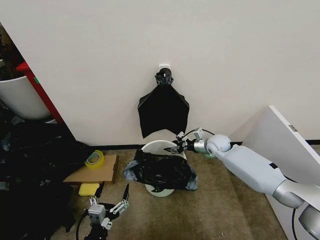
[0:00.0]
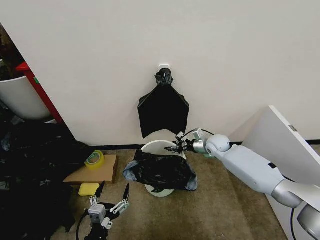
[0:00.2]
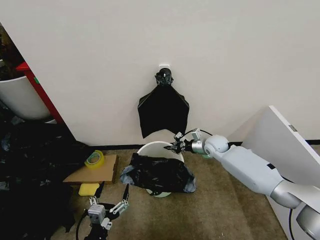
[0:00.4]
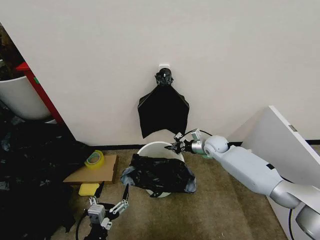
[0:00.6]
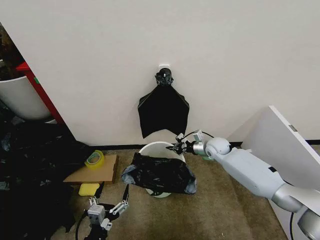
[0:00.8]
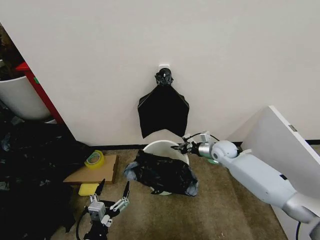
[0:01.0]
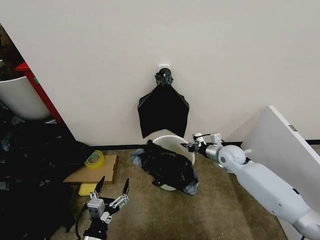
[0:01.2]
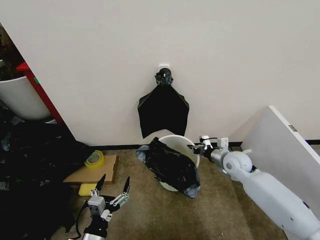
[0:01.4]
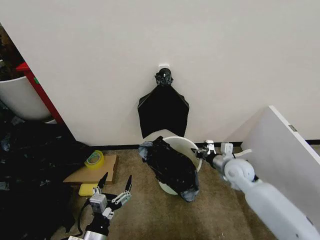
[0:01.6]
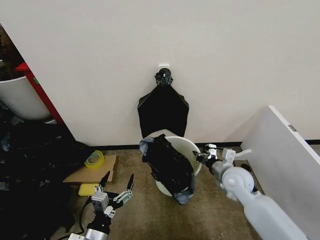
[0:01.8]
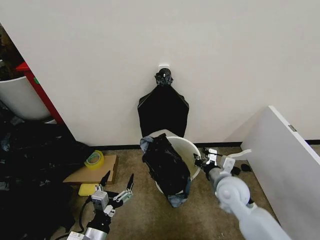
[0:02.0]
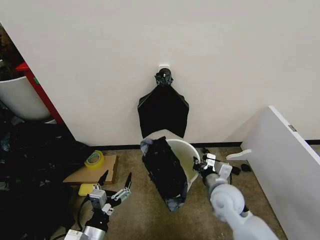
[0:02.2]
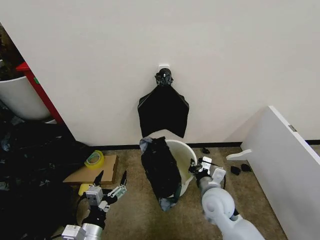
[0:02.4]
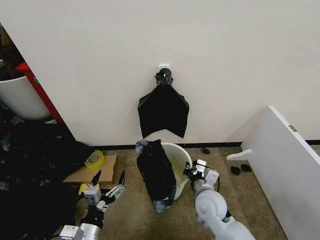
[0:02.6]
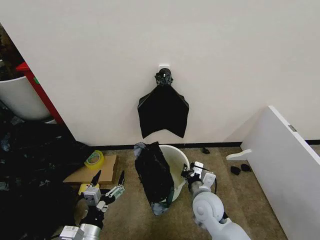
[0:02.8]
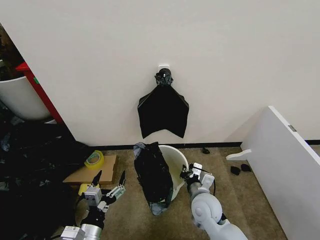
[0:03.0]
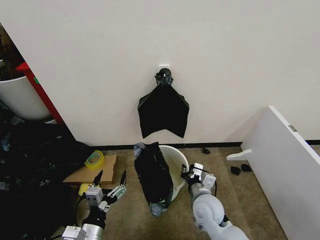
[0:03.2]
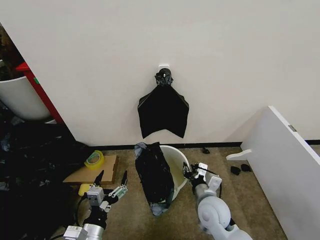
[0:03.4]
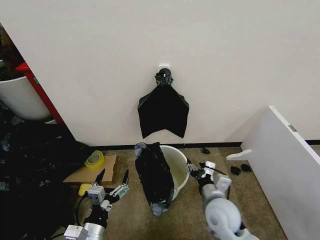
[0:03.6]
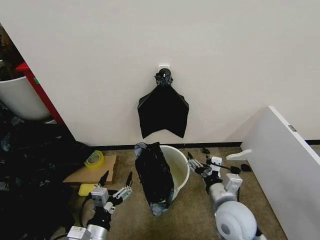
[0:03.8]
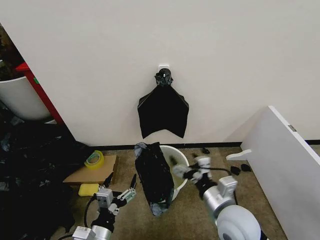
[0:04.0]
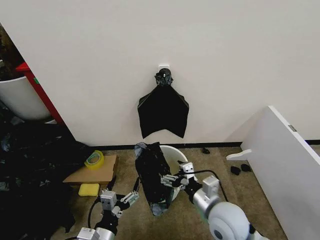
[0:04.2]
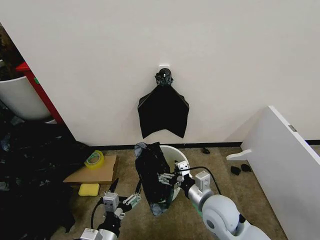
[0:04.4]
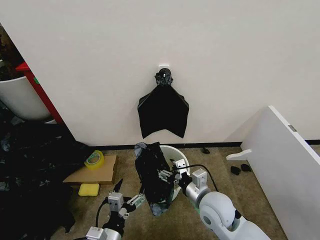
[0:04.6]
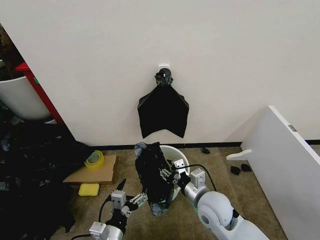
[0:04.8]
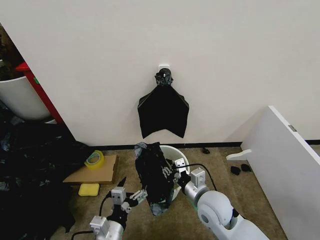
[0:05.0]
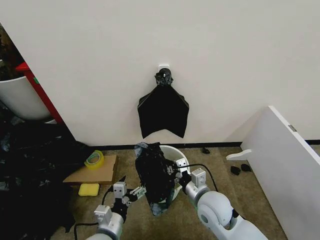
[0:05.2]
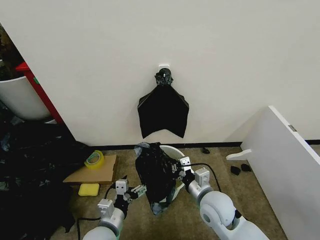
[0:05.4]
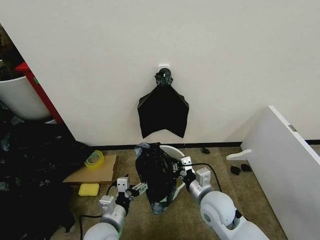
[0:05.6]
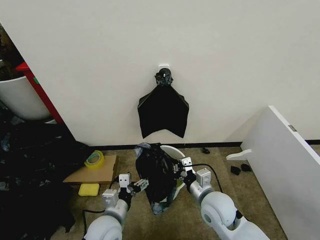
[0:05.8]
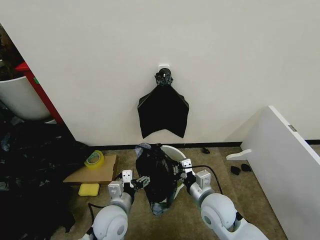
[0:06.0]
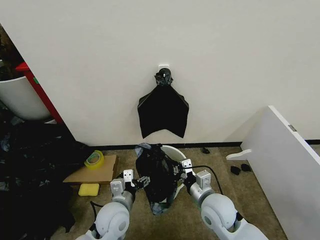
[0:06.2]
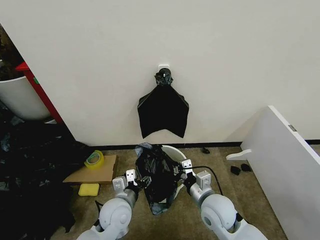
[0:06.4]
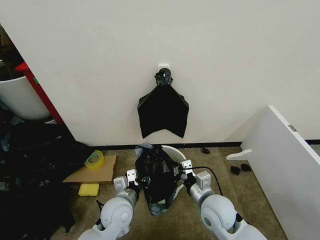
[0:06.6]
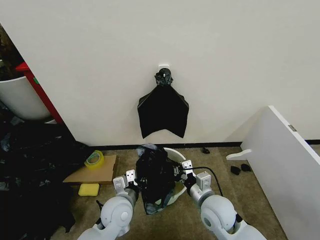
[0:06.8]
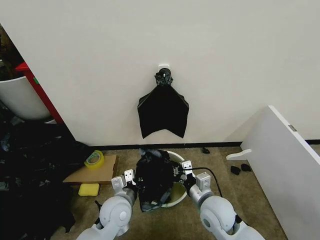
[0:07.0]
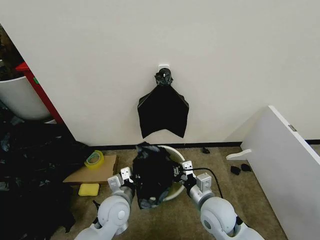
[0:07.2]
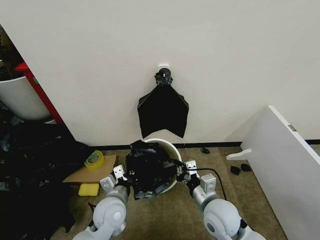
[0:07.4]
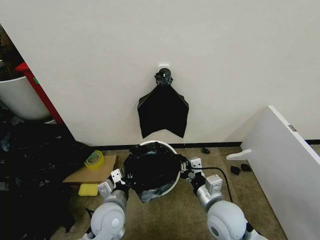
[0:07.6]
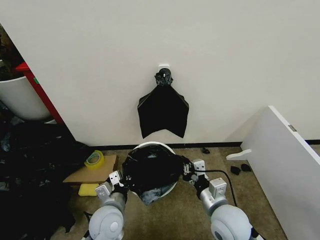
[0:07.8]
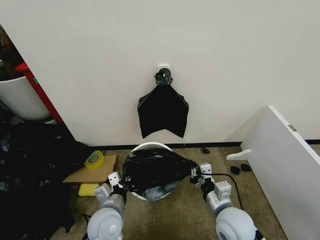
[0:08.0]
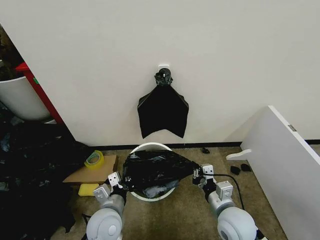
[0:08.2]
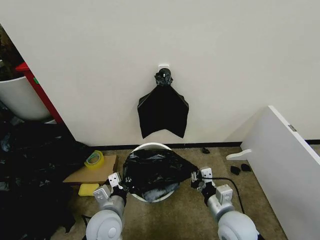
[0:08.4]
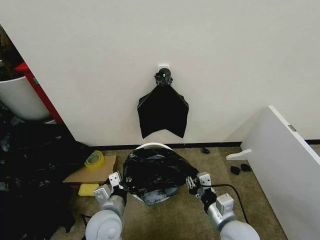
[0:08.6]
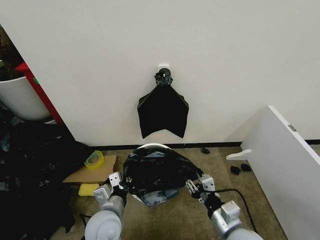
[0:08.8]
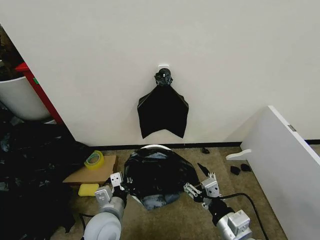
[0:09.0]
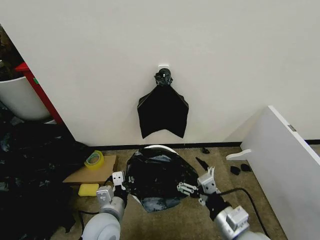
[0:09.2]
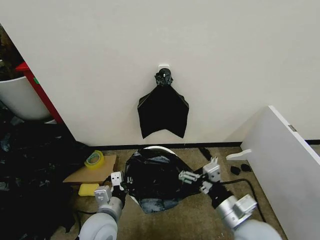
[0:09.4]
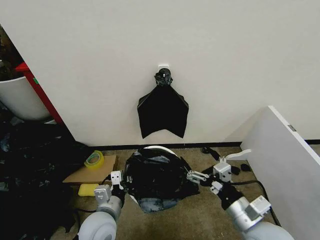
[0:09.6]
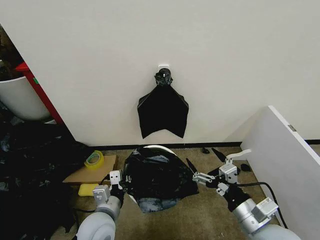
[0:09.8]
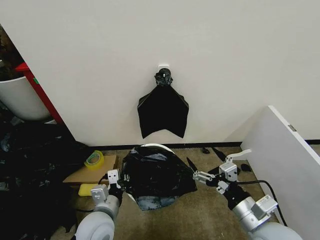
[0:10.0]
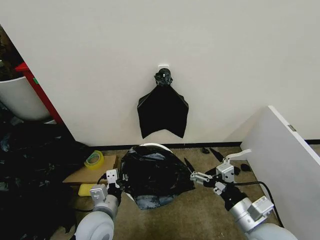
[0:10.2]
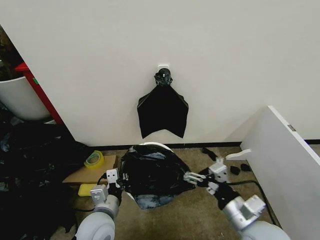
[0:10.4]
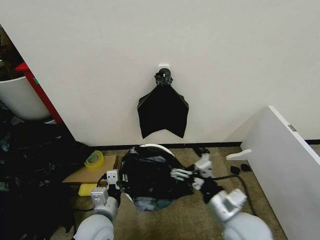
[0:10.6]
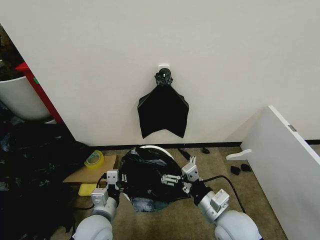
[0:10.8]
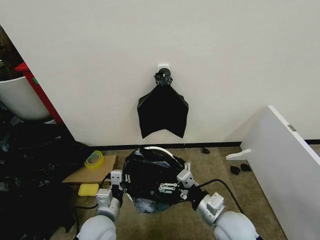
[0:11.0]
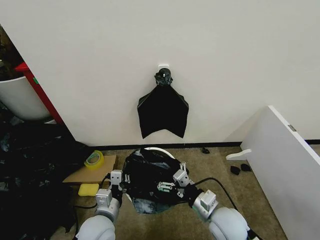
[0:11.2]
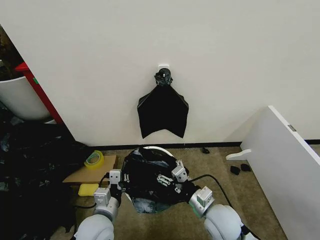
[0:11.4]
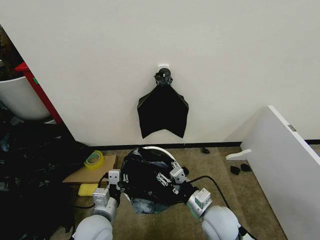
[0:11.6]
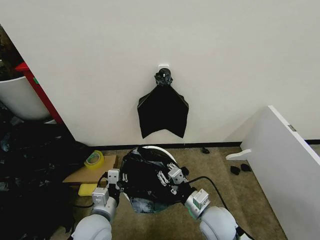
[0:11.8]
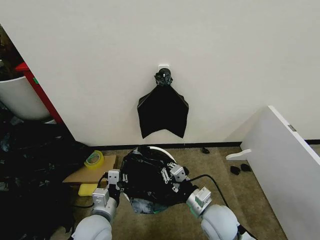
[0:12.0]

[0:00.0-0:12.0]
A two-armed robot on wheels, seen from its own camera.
Task of the whole recording: Place the garbage bag over the trash bin.
0:00.0 to 0:01.6: The right gripper moves backward, about 10 cm, and closes its fingers.
0:01.6 to 0:03.0: The right gripper goes some 20 cm backward and to the left.
0:03.0 to 0:04.4: The right gripper shifts roughly 5 cm upward, and opens its fingers.
0:04.4 to 0:06.0: The left gripper shifts approximately 10 cm forward, while the right gripper closes its fingers.
0:06.0 to 0:07.6: The left gripper closes its fingers.
0:07.6 to 0:09.0: The right gripper heads backward, covering approximately 10 cm, and opens its fingers.
0:09.0 to 0:10.4: The grippers stay close to where they were, moving slightly.
0:10.4 to 0:12.0: The right gripper travels downward, to the left and forward by about 15 cm, and closes up.

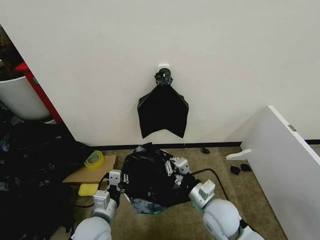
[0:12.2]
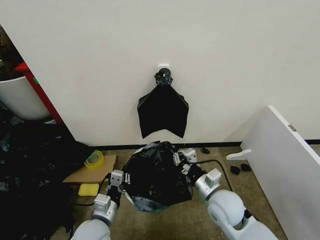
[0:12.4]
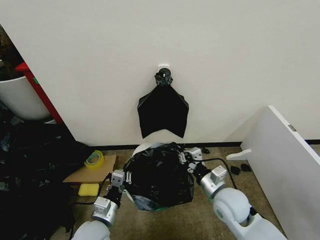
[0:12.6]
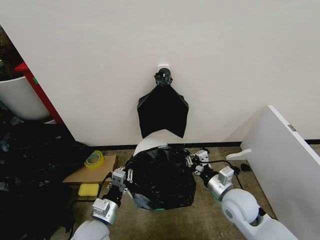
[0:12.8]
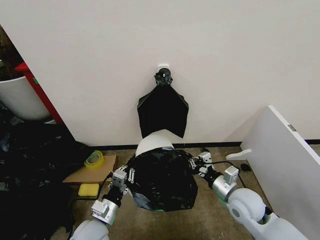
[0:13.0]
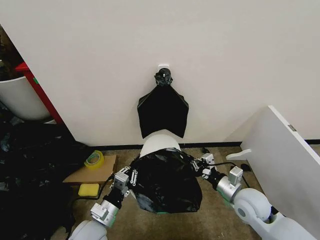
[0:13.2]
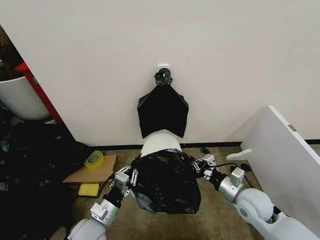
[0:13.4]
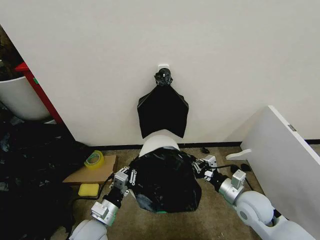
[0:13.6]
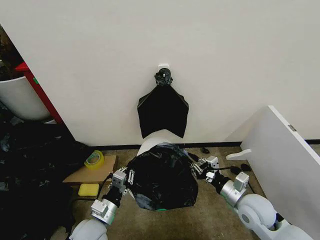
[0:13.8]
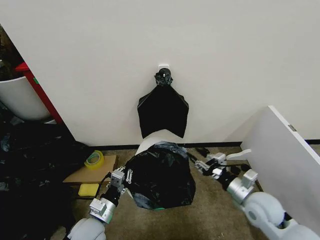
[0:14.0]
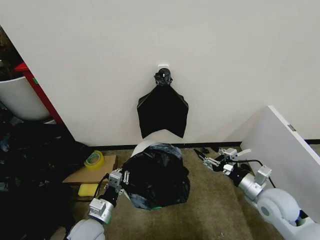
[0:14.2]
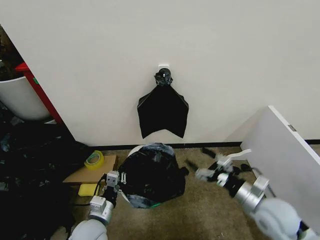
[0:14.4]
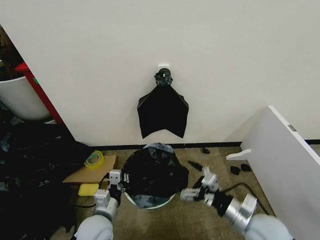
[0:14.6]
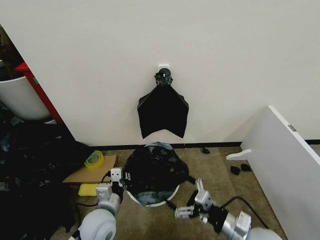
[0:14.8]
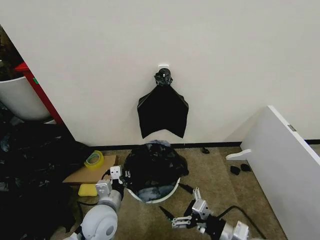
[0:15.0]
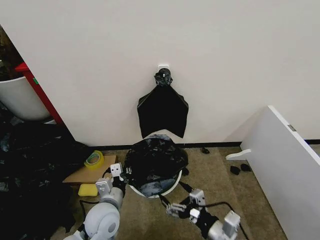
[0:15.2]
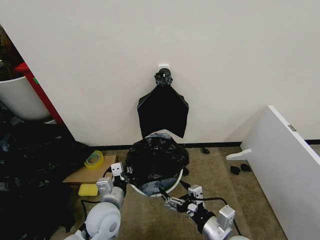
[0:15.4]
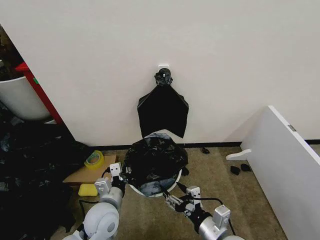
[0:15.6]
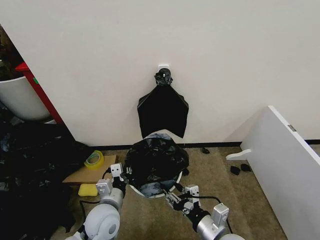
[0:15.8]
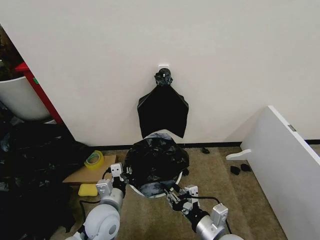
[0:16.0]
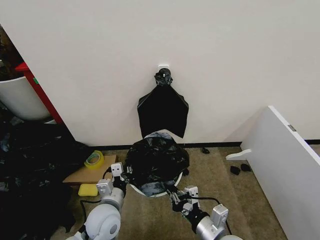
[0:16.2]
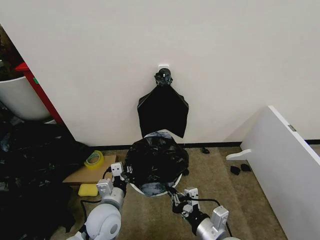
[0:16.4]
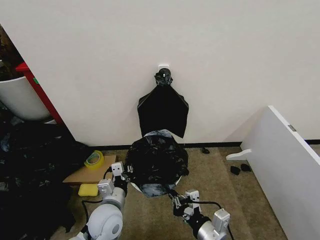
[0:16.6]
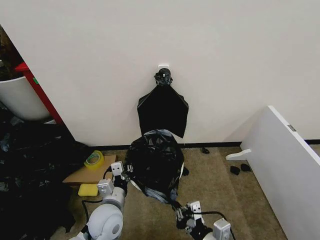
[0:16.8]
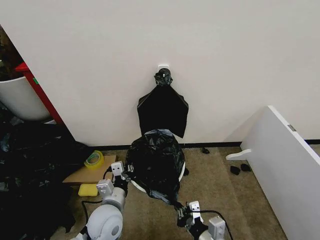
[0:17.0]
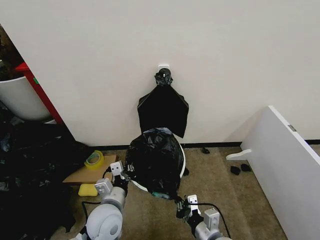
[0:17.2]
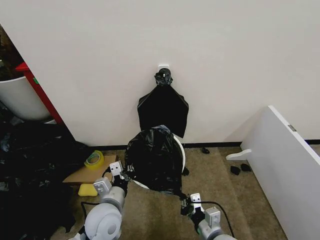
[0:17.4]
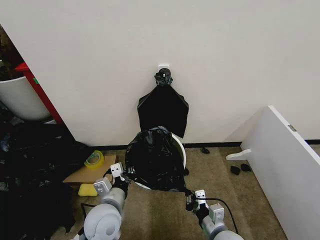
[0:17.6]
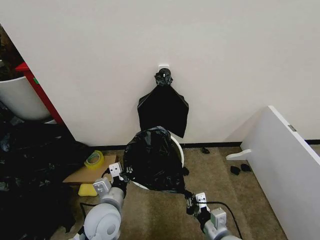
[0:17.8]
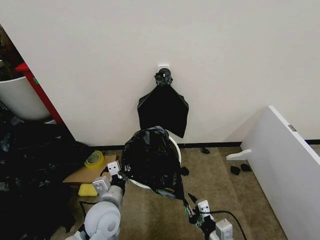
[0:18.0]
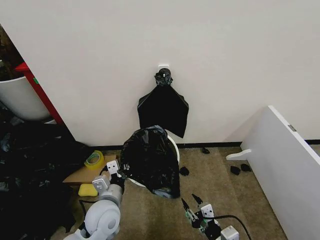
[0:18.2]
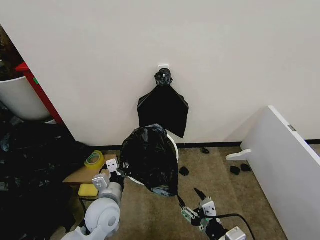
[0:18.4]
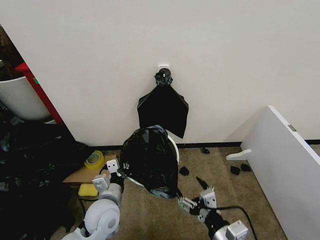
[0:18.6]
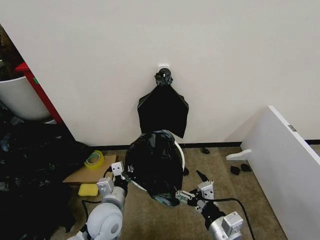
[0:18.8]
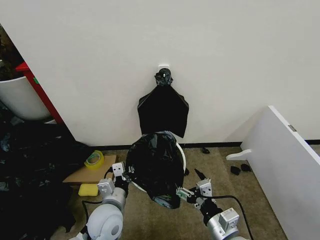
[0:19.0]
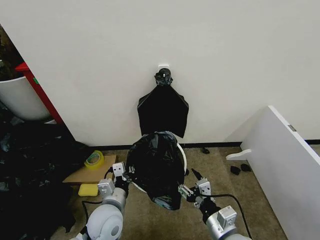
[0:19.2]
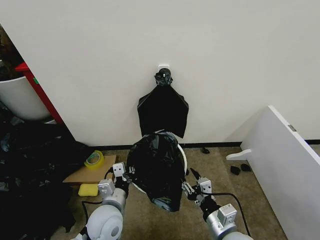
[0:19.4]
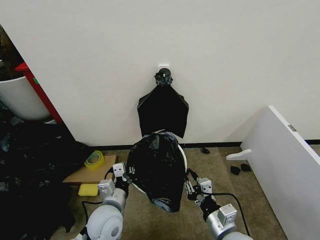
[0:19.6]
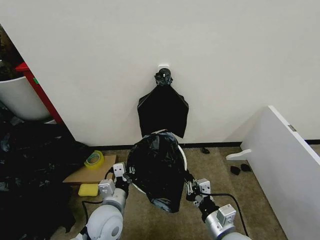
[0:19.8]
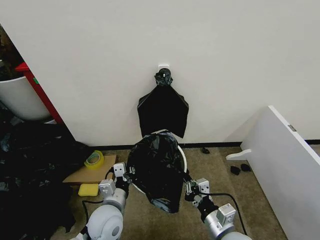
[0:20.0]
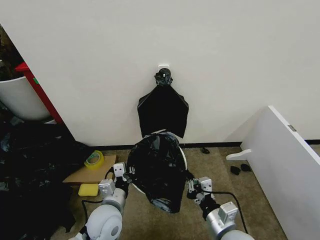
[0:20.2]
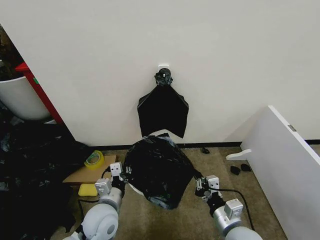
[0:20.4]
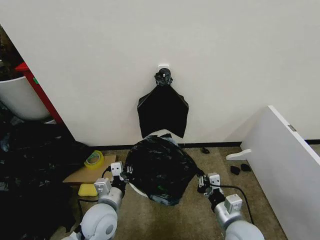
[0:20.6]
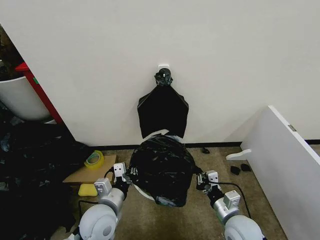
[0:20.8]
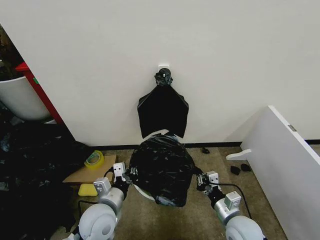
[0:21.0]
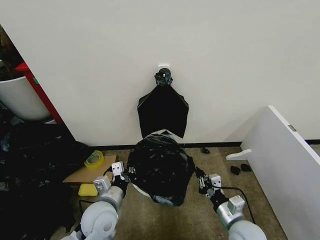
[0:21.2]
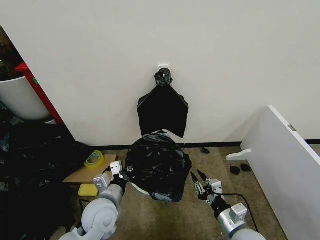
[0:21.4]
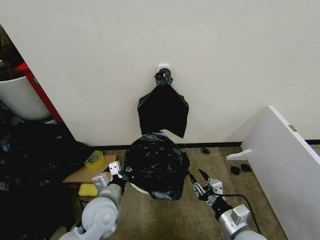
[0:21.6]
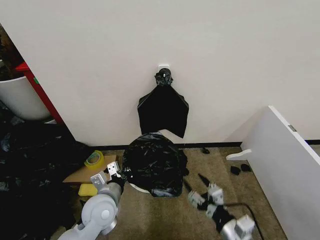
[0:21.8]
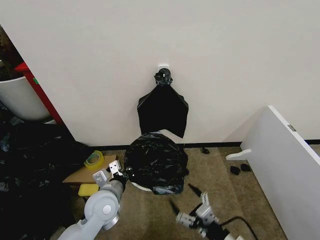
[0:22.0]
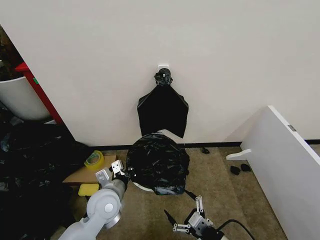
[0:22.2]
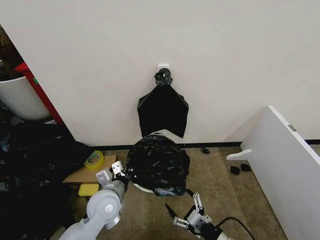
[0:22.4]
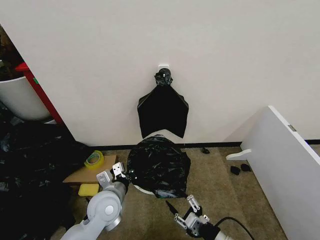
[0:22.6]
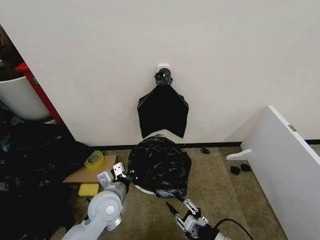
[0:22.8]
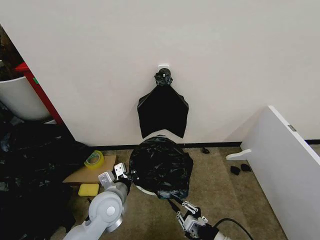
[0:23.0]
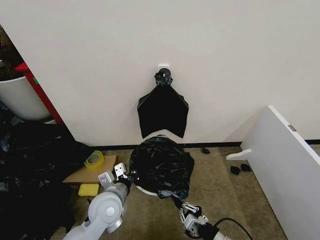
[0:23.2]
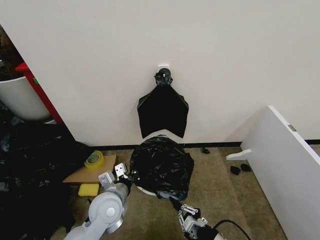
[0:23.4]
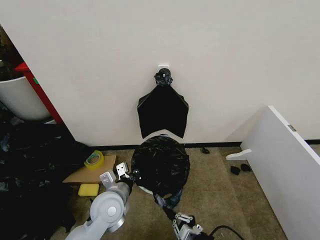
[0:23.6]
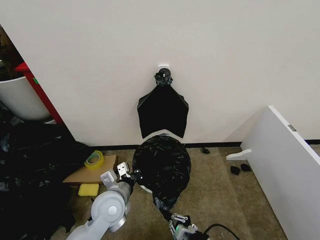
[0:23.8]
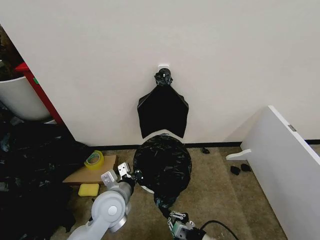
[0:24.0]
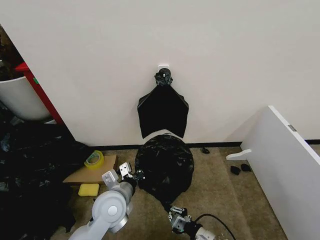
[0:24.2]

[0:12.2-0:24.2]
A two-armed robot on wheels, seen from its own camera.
Task of the whole recording: Place the garbage bag over the trash bin.
0:12.2 to 0:13.8: The right gripper is displaced to the right by approximately 10 cm.
0:13.8 to 0:15.2: The right gripper goes some 15 cm backward and to the left, and opens. Meanwhile the left gripper changes place by about 5 cm.
0:15.2 to 0:16.6: The right gripper closes up.
0:16.6 to 0:18.2: The right gripper moves some 5 cm, and opens.
0:18.2 to 0:19.8: The right gripper ends up approximately 5 cm from where it was, and closes up.
0:19.8 to 0:21.2: The right gripper heads to the right, covering roughly 5 cm.
0:21.2 to 0:22.6: The right gripper travels backward by approximately 5 cm, and opens.
0:22.6 to 0:24.2: The right gripper shifts approximately 5 cm downward, and closes up.
